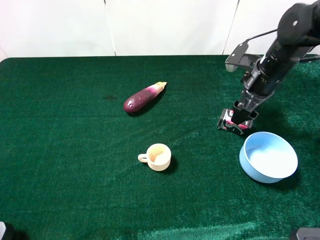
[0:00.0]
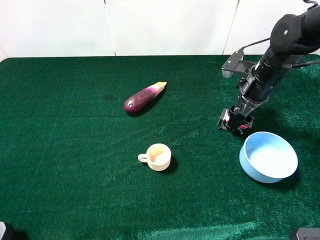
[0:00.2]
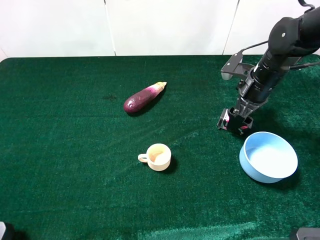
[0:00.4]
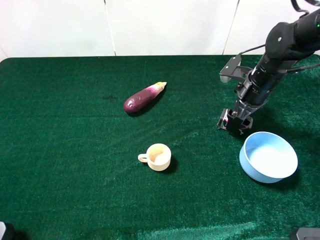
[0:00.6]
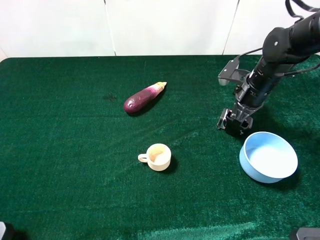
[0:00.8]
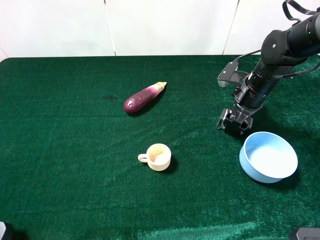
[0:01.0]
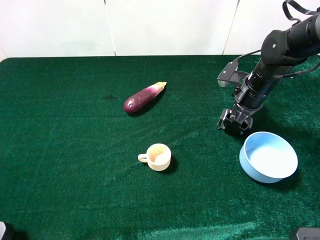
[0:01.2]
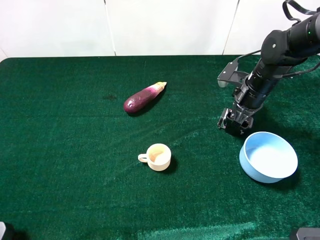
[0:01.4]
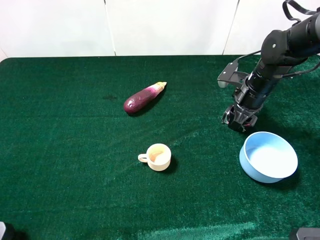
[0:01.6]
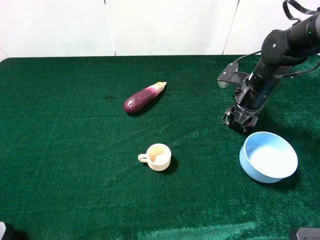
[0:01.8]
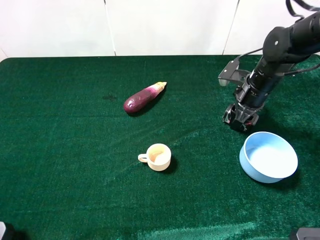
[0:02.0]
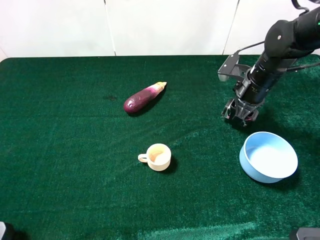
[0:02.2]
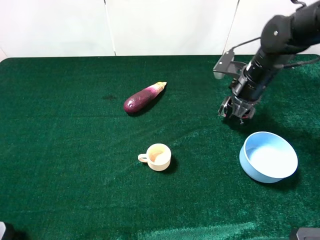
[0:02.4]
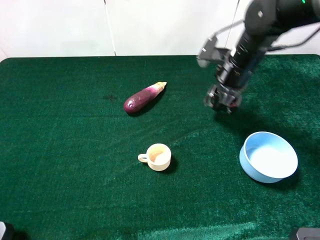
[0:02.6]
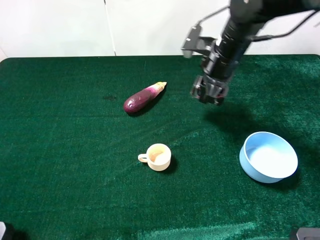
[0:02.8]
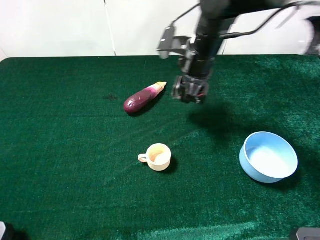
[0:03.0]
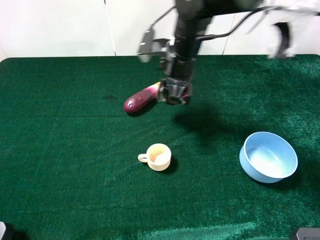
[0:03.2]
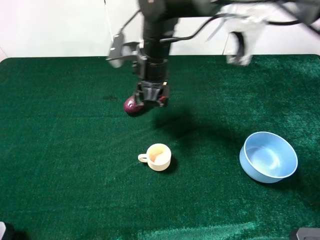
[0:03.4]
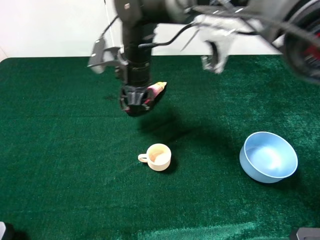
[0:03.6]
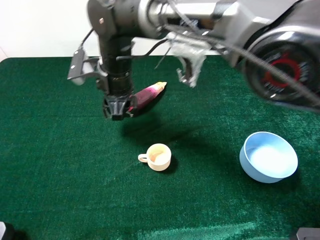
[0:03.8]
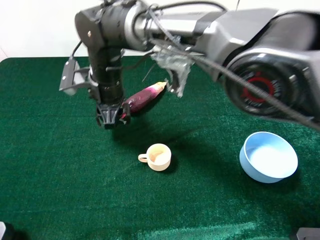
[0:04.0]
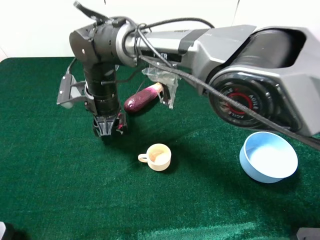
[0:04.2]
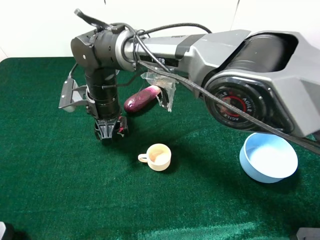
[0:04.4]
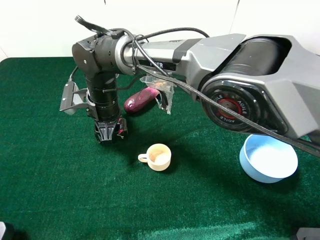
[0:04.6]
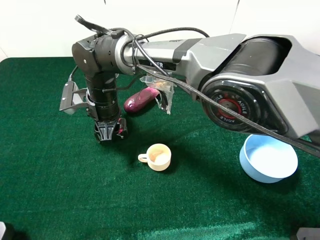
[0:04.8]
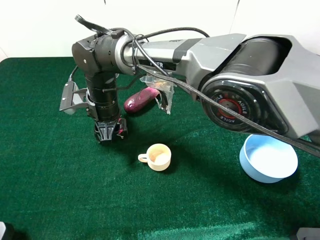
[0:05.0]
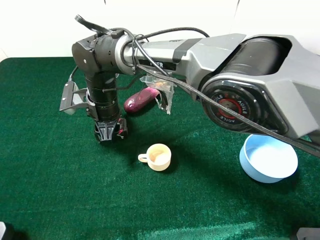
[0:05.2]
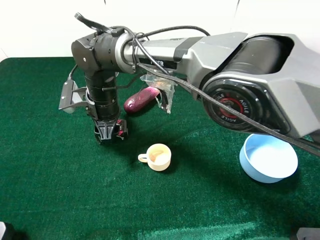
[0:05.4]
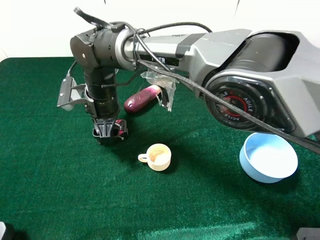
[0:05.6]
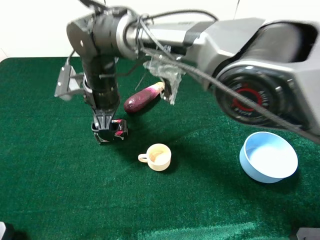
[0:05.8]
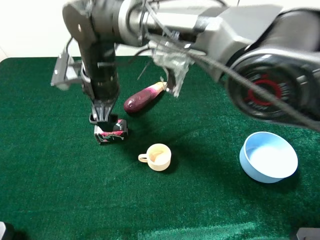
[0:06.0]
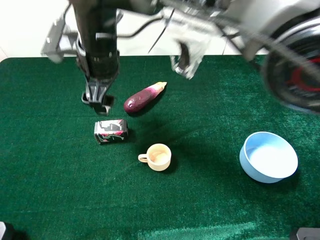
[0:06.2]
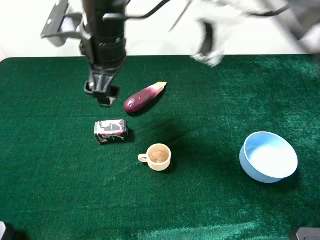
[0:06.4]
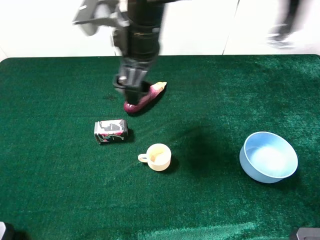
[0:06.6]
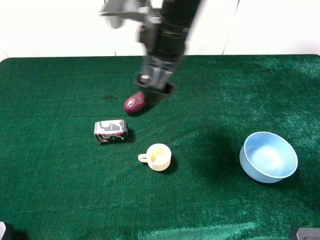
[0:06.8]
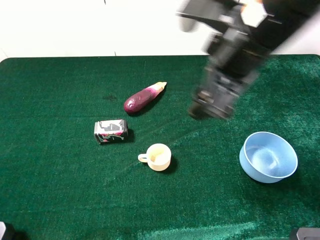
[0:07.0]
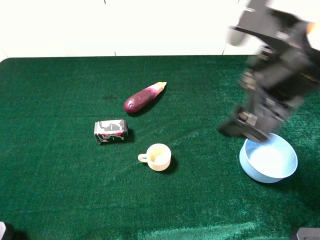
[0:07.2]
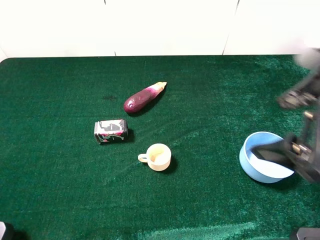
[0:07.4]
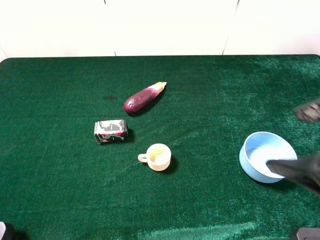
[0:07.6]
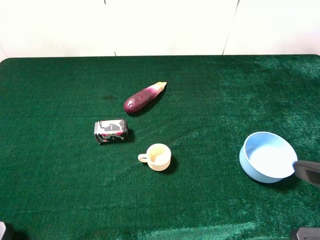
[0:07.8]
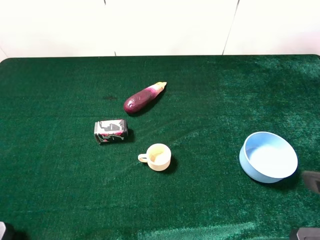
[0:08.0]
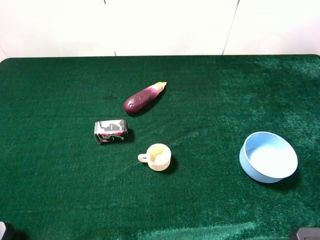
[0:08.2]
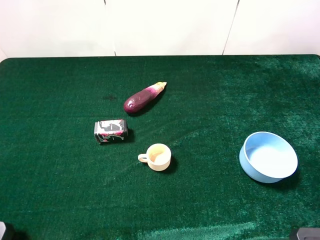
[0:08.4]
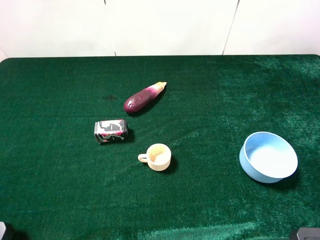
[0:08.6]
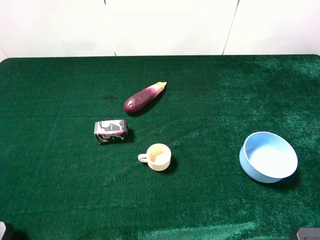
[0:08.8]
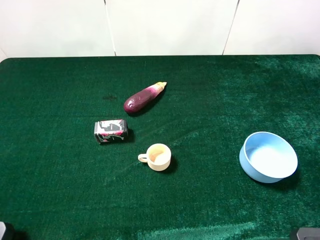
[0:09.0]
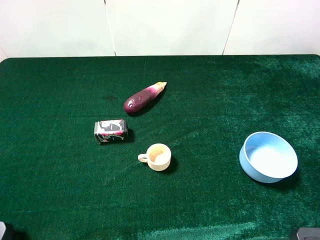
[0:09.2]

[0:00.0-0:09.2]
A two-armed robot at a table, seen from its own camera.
Task of the whole recording: the gripper move the object.
Step, 0:01.8 to 0:05.4: Place the square chewing gum on the table with the right gripper.
0:00.0 to 0:01.6: The right gripper closes.
0:01.6 to 0:03.0: The right gripper heads to the left and upward, covering approximately 15 cm.
0:03.0 to 0:04.6: The right gripper goes about 20 cm to the left and downward.
0:04.6 to 0:06.2: The right gripper is displaced upward by roughly 15 cm, and opens its fingers.
0:06.2 to 0:07.6: The right gripper moves to the right and backward, approximately 40 cm.
0:07.6 to 0:09.2: The right gripper travels backward and to the right by approximately 10 cm.
